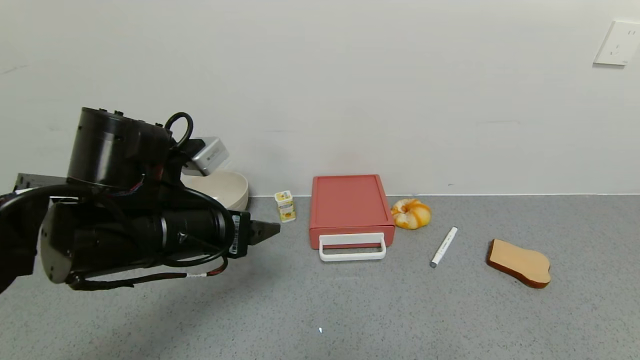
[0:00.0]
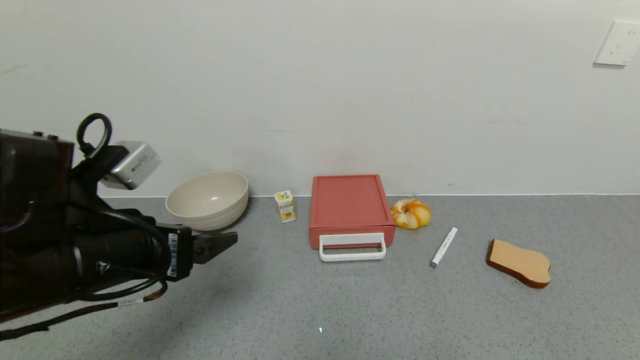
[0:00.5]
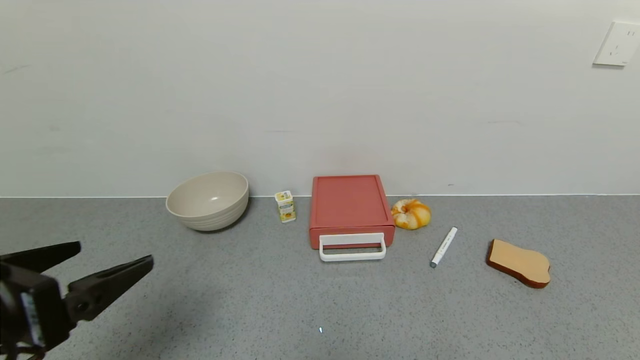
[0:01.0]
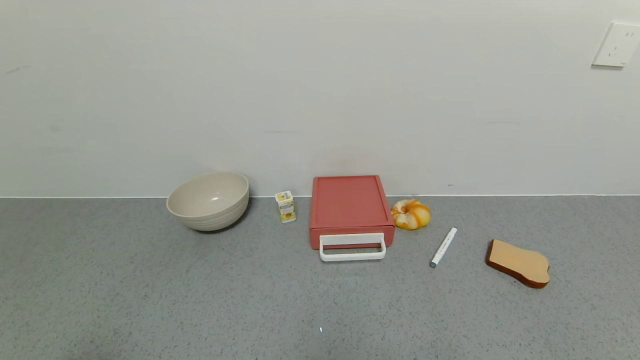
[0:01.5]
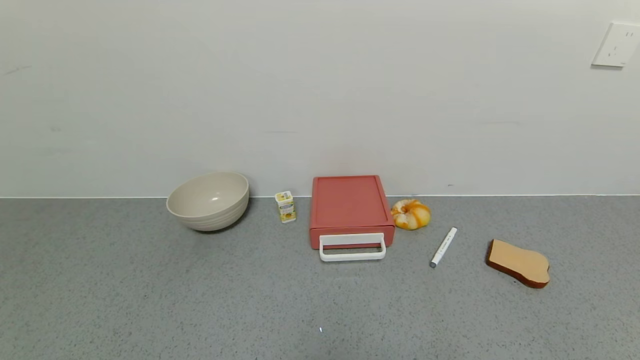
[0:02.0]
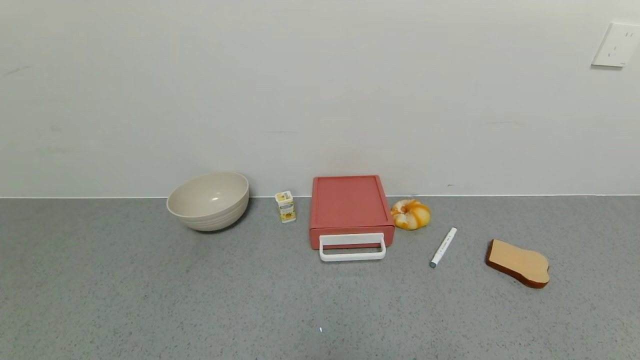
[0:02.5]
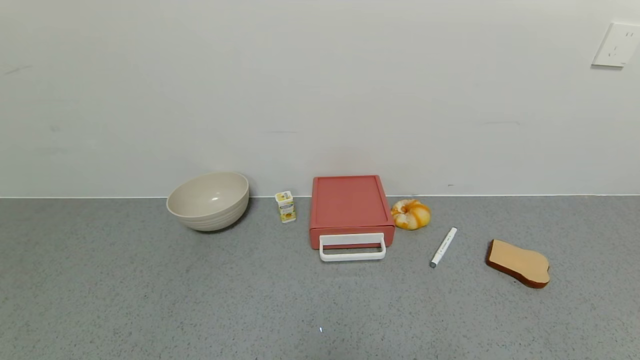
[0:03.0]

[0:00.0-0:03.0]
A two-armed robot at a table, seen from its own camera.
Task of the whole recording: use the gripper to open the drawer and close the red drawer.
0:00.0 to 0:01.5: The left gripper heads backward and to the left, covering some 30 cm.
